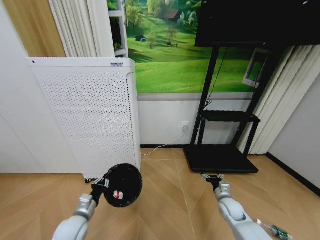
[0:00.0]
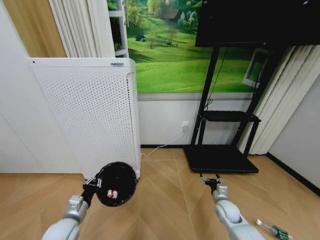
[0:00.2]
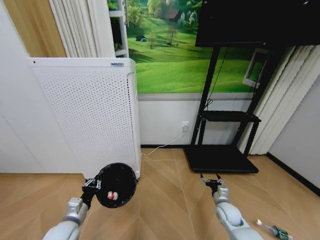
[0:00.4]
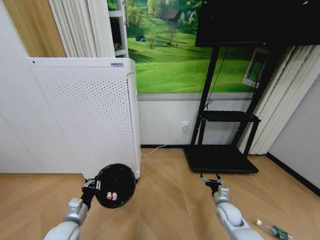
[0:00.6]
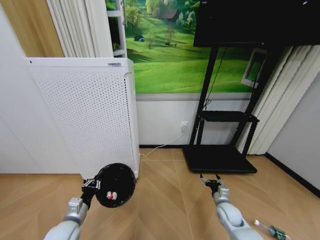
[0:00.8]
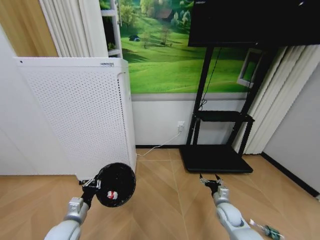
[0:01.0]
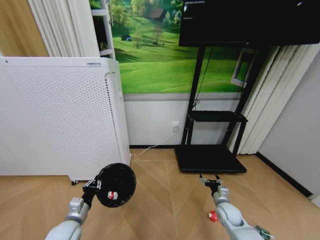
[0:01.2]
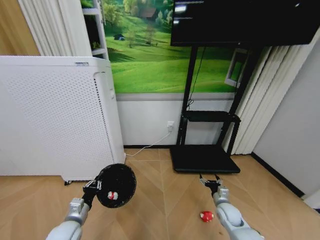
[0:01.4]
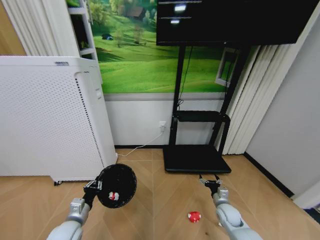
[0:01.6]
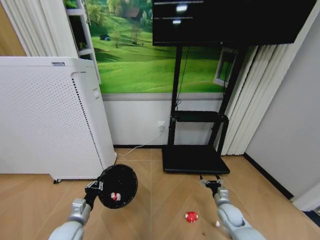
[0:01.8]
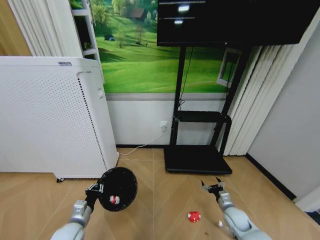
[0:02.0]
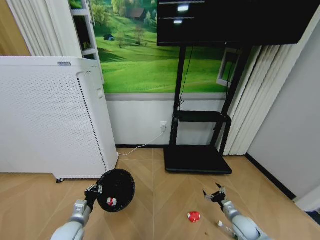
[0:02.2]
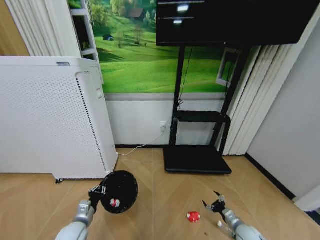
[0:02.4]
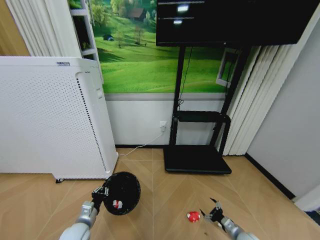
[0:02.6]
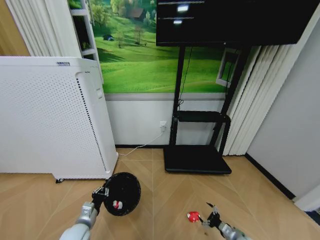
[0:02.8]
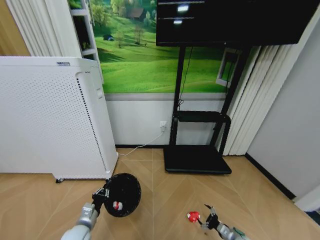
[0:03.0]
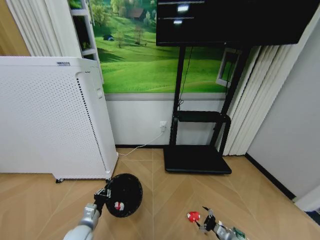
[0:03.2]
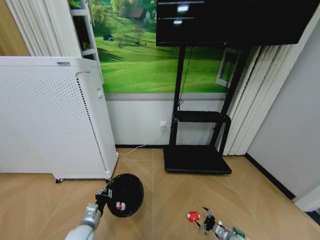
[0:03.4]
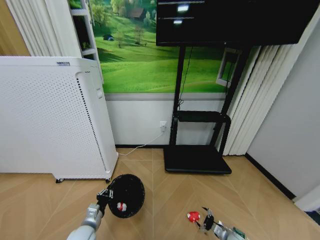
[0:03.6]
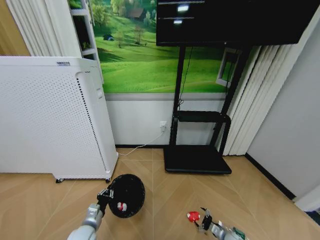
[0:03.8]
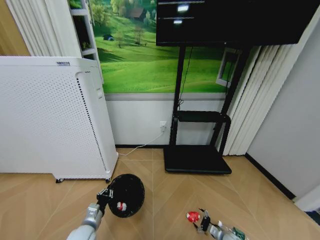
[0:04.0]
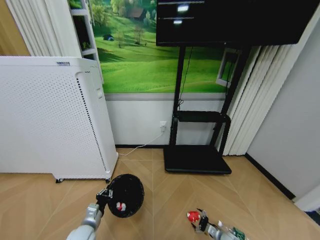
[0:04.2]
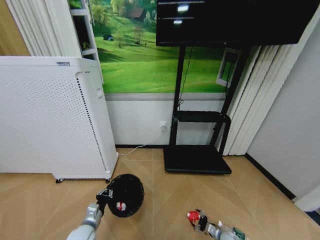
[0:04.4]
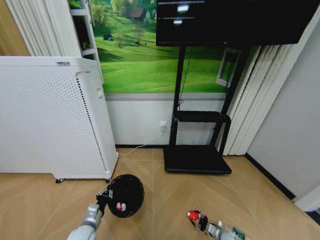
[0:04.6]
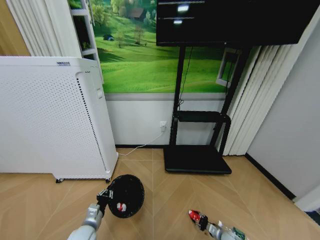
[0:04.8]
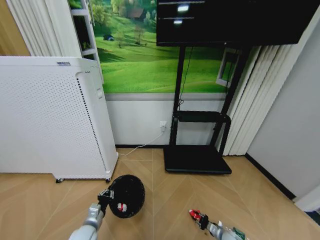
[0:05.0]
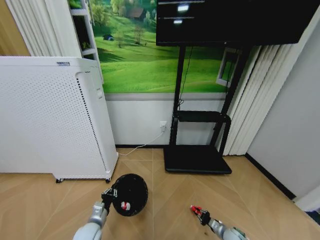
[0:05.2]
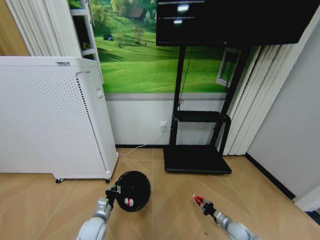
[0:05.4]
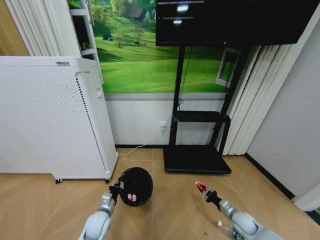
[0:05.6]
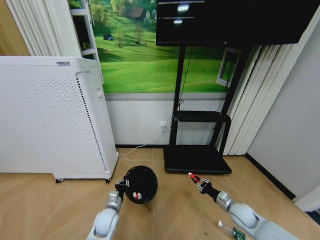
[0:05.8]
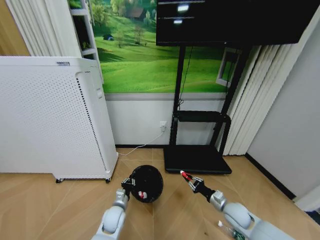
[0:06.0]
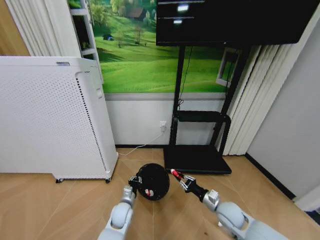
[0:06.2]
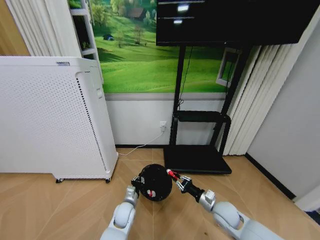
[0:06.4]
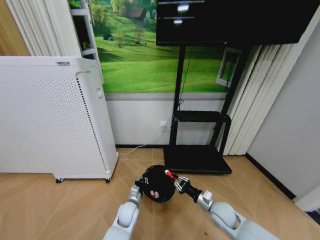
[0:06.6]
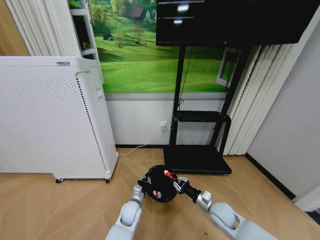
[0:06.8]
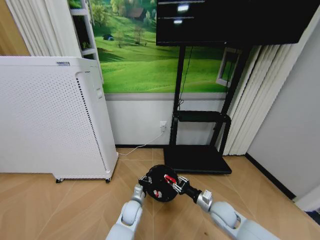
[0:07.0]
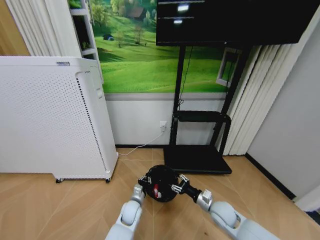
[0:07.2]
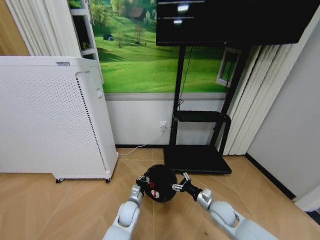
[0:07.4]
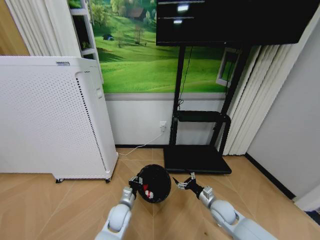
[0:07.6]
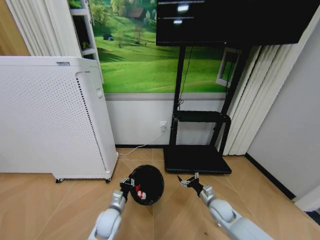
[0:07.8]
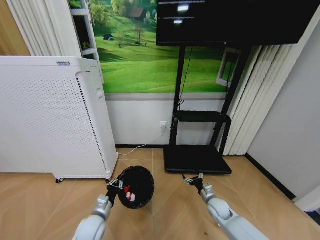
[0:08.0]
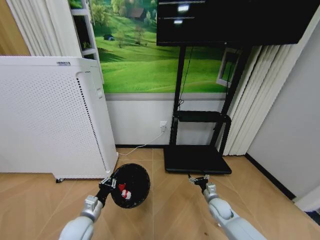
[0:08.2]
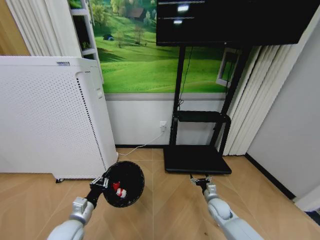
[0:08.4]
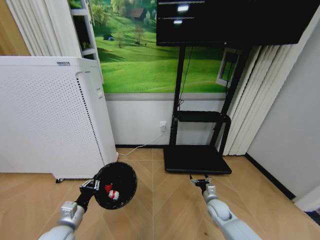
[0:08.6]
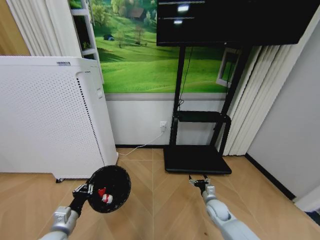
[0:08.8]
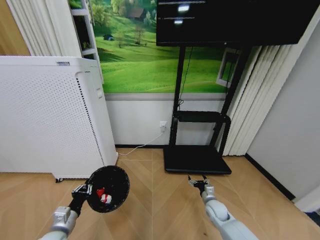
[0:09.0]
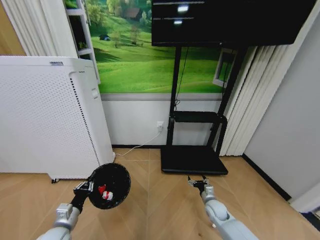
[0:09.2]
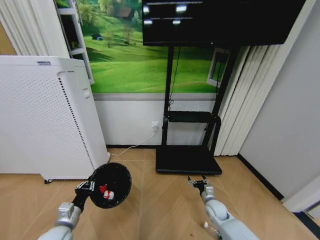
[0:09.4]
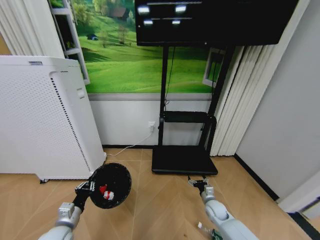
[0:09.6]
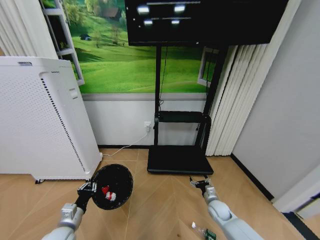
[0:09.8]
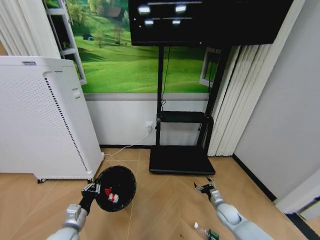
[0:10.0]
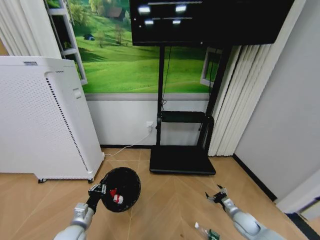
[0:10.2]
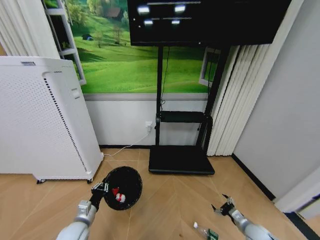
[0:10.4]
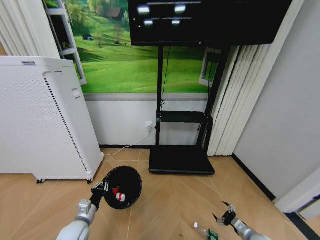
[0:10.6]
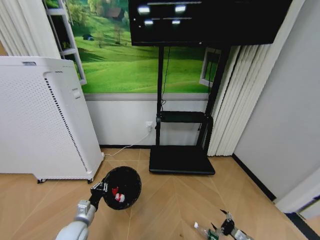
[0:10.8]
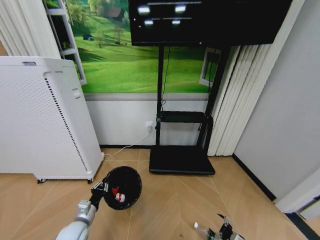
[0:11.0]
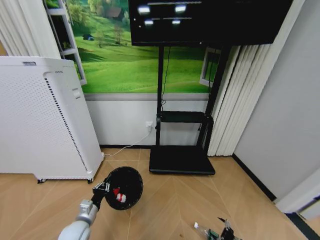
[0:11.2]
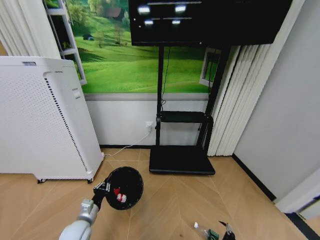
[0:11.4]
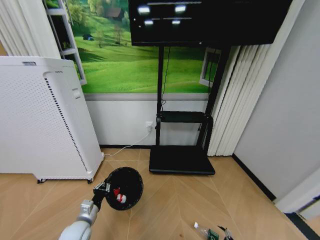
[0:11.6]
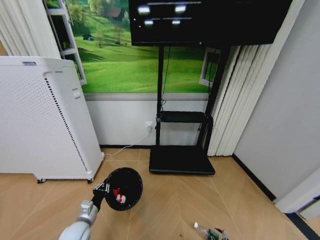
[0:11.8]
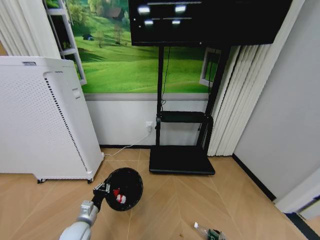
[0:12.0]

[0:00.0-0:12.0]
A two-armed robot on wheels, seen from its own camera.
Task of the whole recording: Pick up the trash bin and place the garbage on the floor into it.
0:01.6 to 0:03.0: The left gripper changes place by approximately 5 cm. Meanwhile the right gripper is displaced backward, downward and to the right by roughly 15 cm.
0:03.0 to 0:04.4: The right gripper heads downward, covering roughly 10 cm.
0:04.4 to 0:06.0: The right gripper travels upward by roughly 20 cm, and closes up. Meanwhile the left gripper moves to the right and forward, about 10 cm.
0:06.0 to 0:07.6: The right gripper heads to the left, covering approximately 5 cm, and opens its fingers.
0:07.6 to 0:09.0: The left gripper is displaced to the left, backward and upward by some 25 cm. Meanwhile the right gripper shifts some 5 cm downward.
0:09.0 to 0:10.4: The left gripper moves about 5 cm. The right gripper goes about 15 cm to the right and backward.
0:10.4 to 0:12.0: The right gripper heads backward and downward, covering about 15 cm.

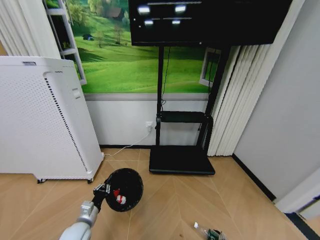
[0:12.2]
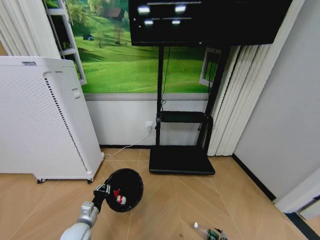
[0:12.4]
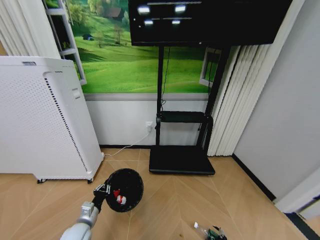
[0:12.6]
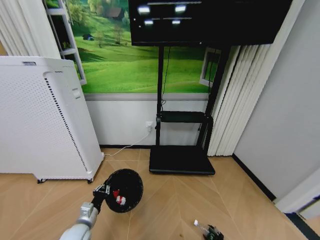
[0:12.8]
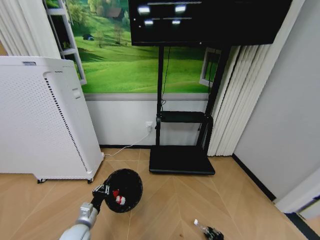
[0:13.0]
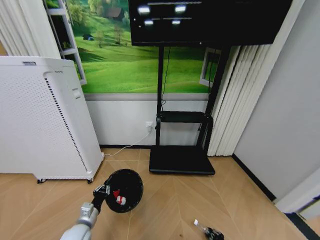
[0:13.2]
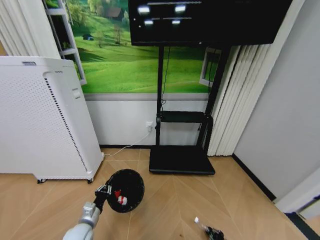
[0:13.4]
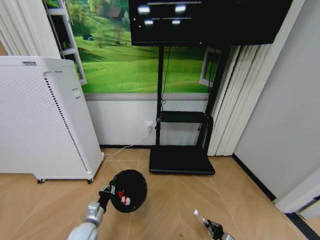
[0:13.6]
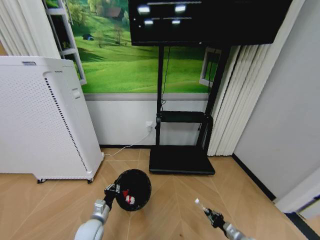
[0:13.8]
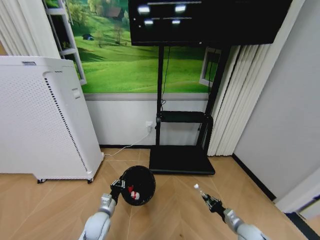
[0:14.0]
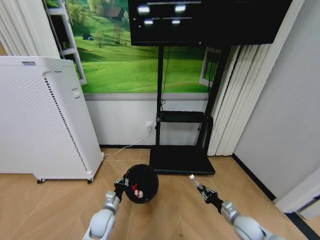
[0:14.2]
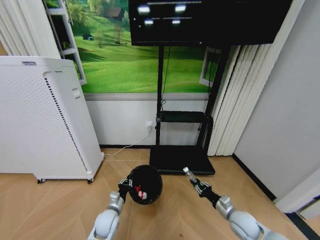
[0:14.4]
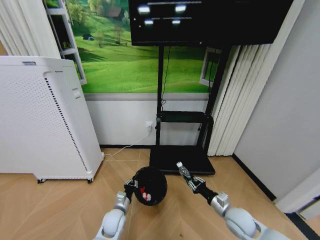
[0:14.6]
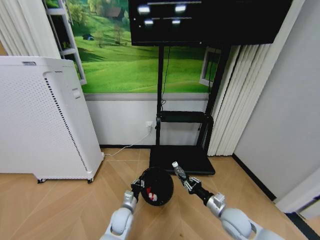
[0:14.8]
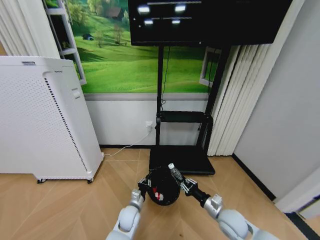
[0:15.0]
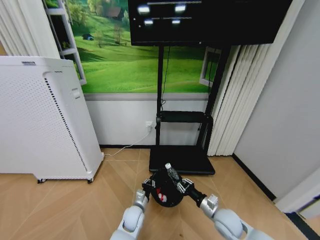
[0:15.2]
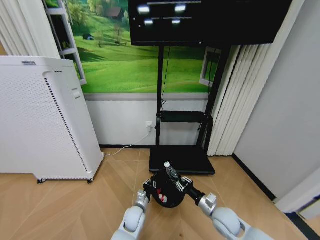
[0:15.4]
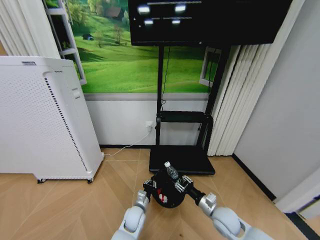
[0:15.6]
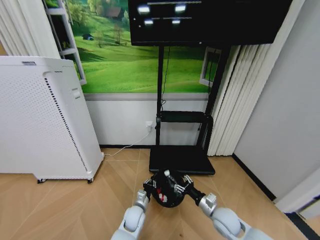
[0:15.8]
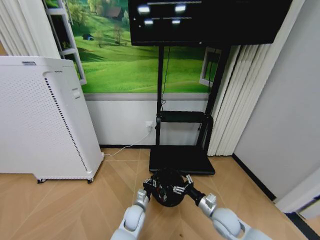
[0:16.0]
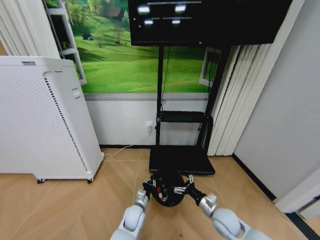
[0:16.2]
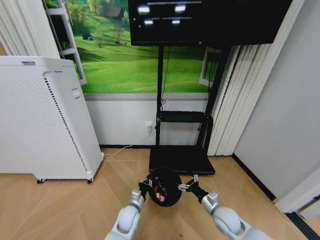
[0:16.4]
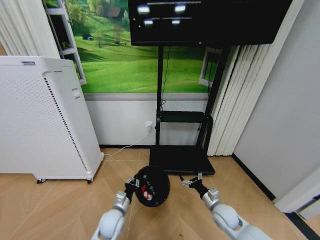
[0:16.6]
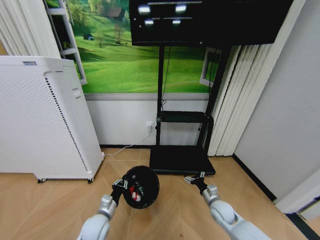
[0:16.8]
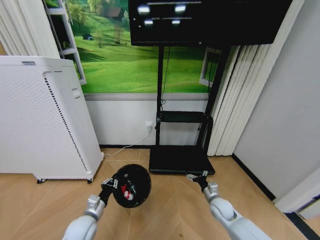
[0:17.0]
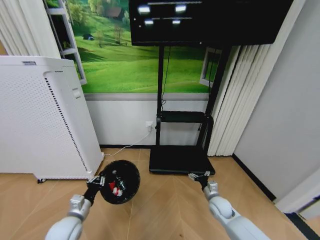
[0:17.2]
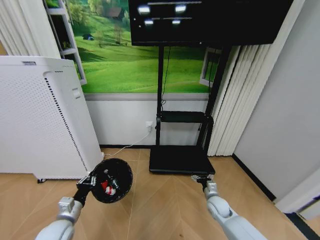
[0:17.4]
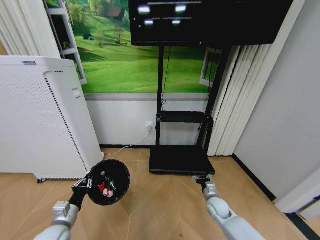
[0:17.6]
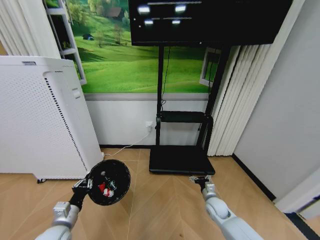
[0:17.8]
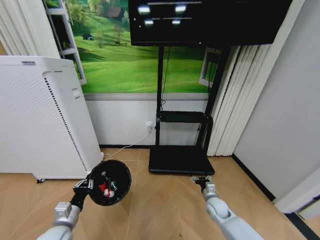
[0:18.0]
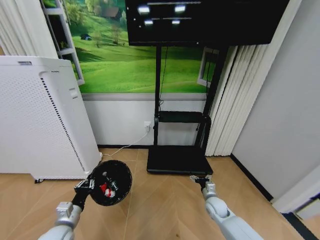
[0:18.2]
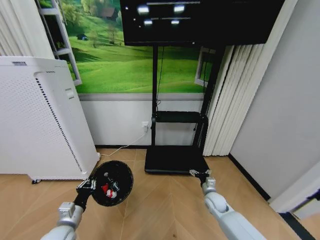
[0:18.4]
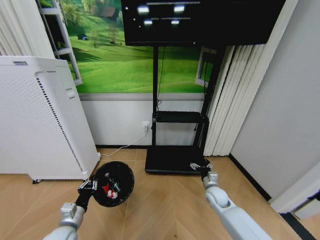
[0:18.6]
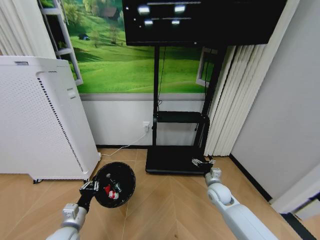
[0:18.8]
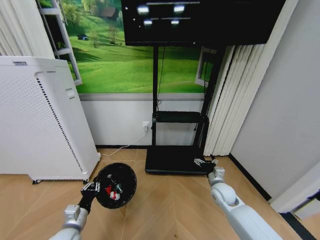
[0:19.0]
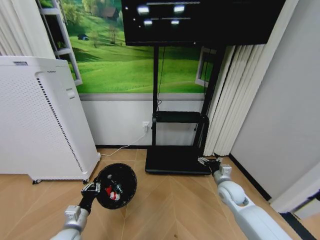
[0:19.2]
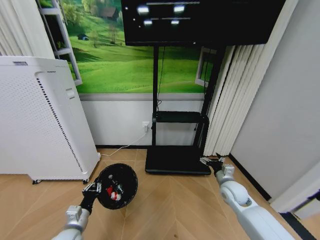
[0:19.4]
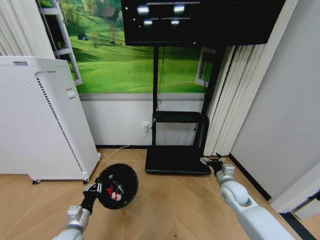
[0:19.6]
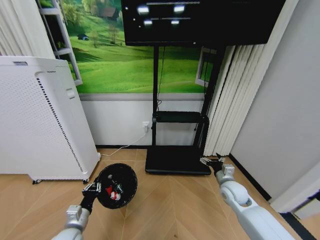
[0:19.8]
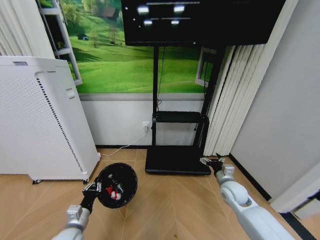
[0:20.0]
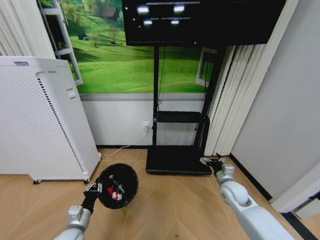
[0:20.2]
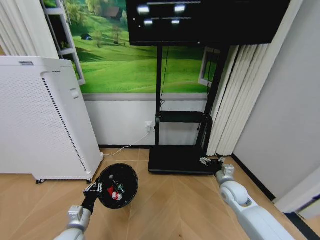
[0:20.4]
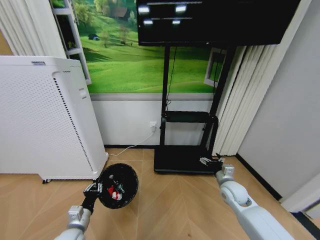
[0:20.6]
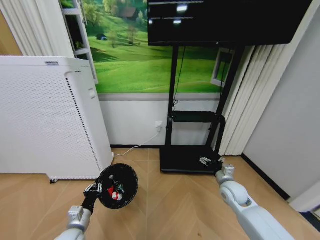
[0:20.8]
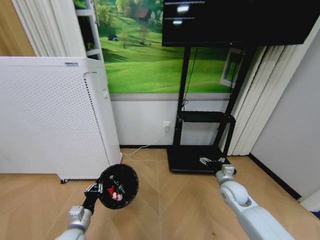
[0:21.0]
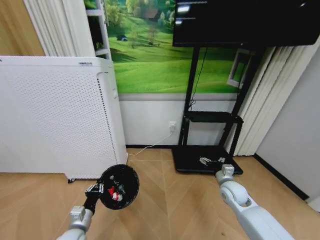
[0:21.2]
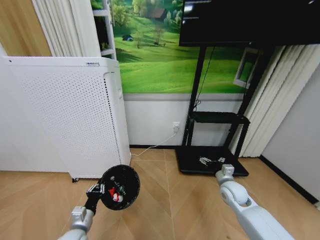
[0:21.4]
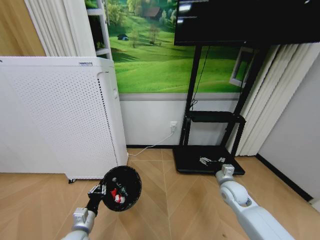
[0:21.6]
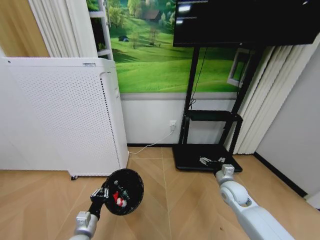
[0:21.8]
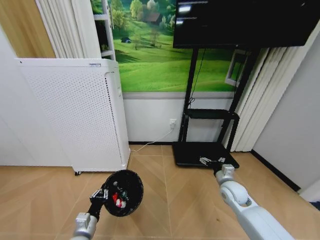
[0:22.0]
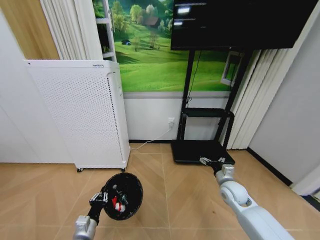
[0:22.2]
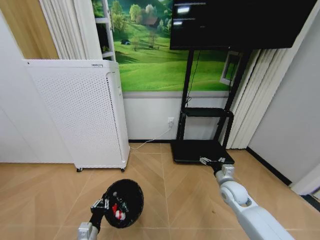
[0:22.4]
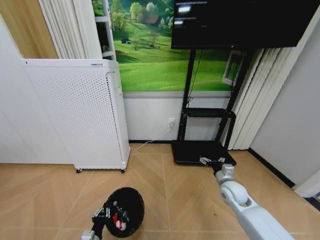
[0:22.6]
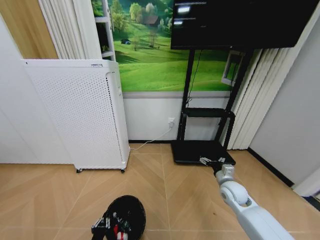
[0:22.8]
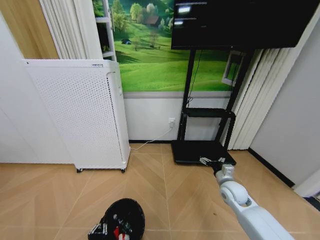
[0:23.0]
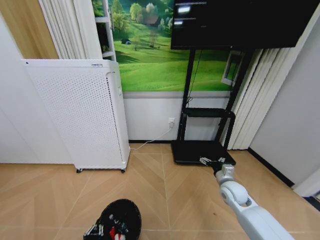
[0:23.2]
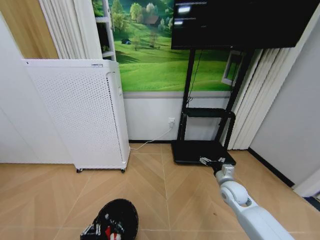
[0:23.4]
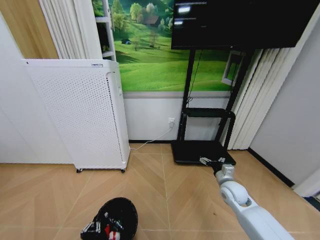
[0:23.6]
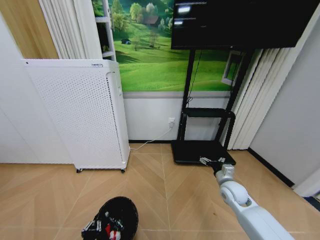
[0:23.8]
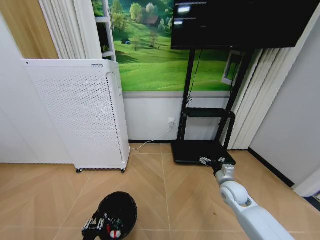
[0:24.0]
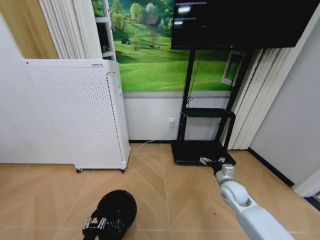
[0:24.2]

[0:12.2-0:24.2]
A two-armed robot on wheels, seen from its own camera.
Task of the whole recording: Pick up the trash bin and place the garbage on the floor into it.
0:12.2 to 0:13.8: The right gripper is displaced forward and upward by about 10 cm, and closes its fingers. The left gripper moves some 5 cm.
0:13.8 to 0:15.2: The right gripper shifts approximately 20 cm upward and to the left; the left gripper shifts some 15 cm to the right.
0:15.2 to 0:16.6: The left gripper shifts about 10 cm to the left. The right gripper opens.
0:16.6 to 0:18.2: The right gripper shifts some 5 cm forward. The left gripper is displaced to the left, backward and upward by about 20 cm.
0:18.2 to 0:19.8: The right gripper shifts some 15 cm upward.
0:21.2 to 0:22.6: The left gripper goes some 10 cm downward and backward.
0:22.6 to 0:24.2: The left gripper opens up.
